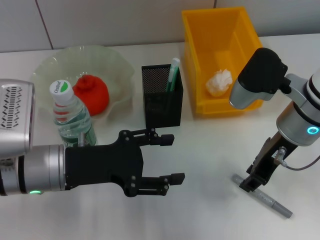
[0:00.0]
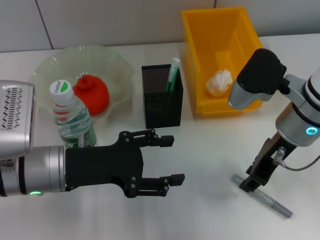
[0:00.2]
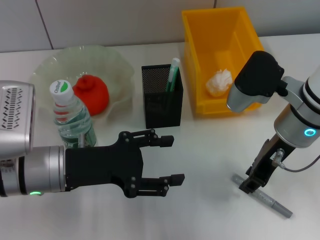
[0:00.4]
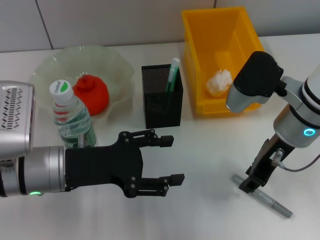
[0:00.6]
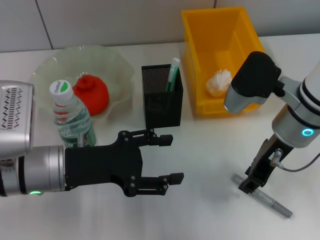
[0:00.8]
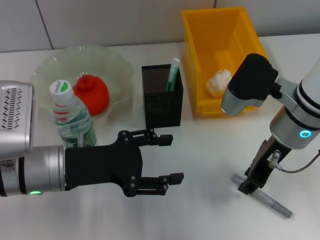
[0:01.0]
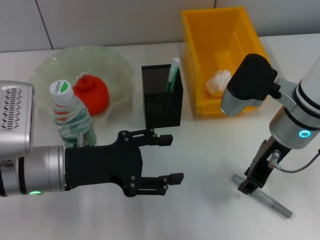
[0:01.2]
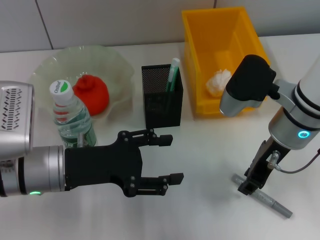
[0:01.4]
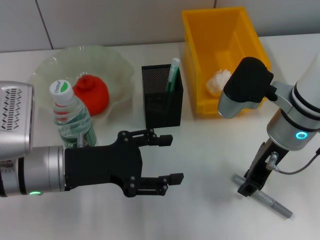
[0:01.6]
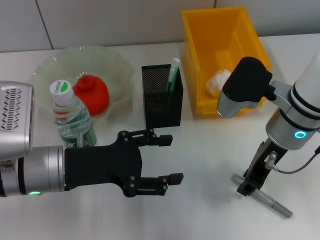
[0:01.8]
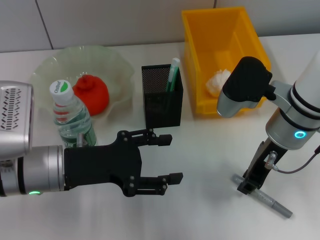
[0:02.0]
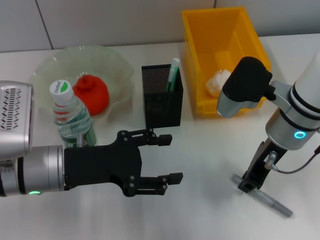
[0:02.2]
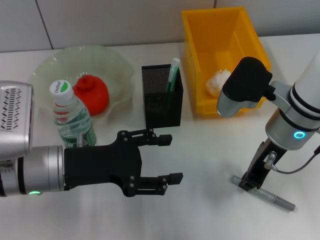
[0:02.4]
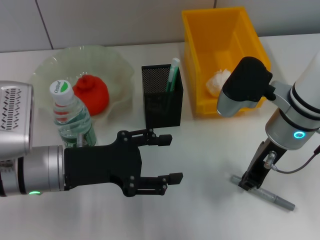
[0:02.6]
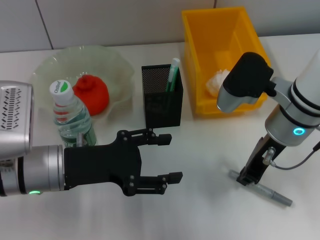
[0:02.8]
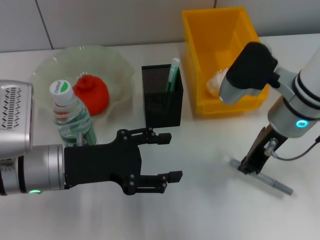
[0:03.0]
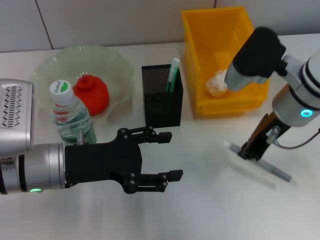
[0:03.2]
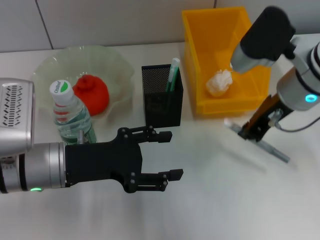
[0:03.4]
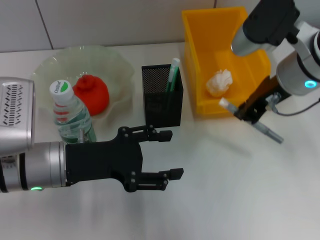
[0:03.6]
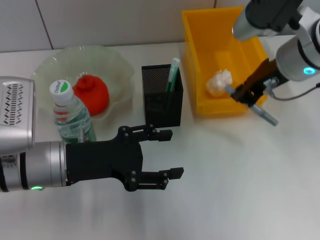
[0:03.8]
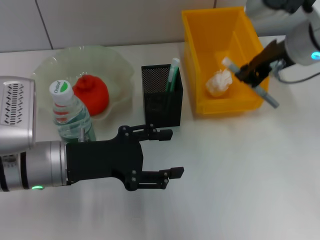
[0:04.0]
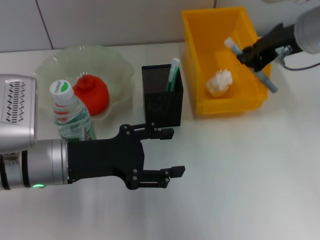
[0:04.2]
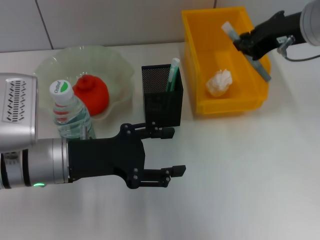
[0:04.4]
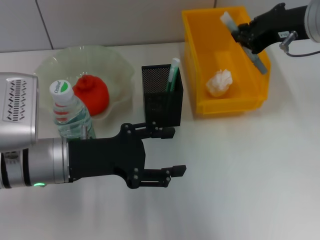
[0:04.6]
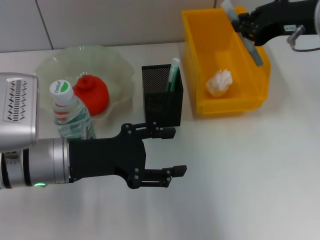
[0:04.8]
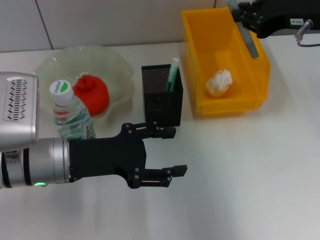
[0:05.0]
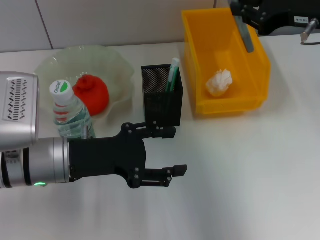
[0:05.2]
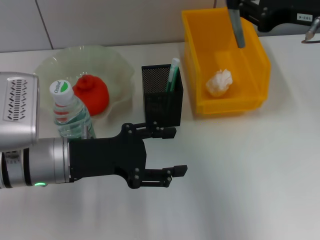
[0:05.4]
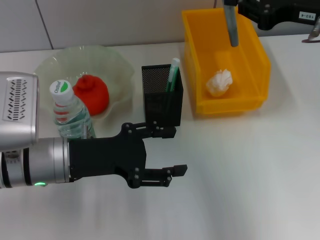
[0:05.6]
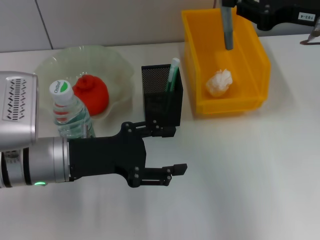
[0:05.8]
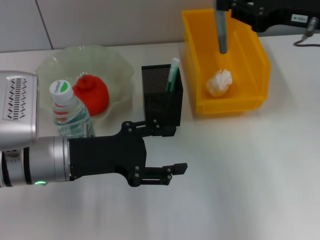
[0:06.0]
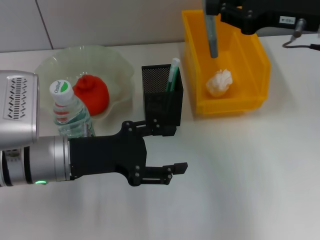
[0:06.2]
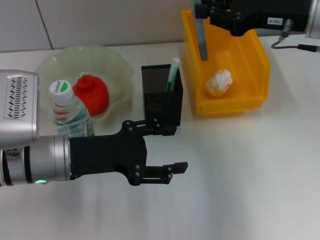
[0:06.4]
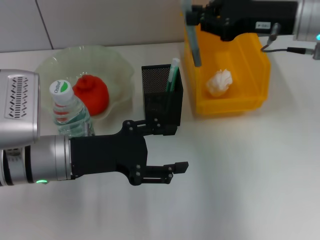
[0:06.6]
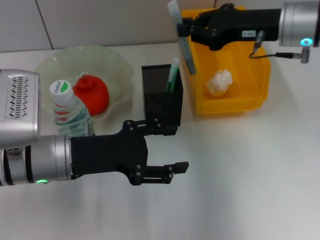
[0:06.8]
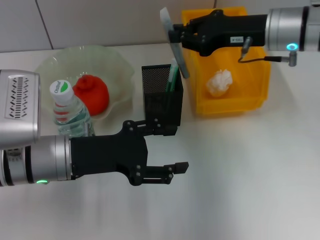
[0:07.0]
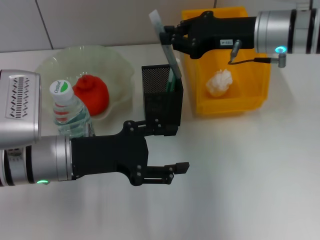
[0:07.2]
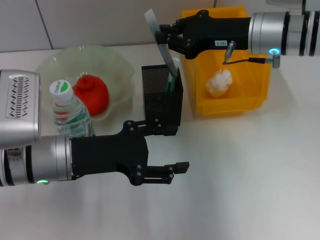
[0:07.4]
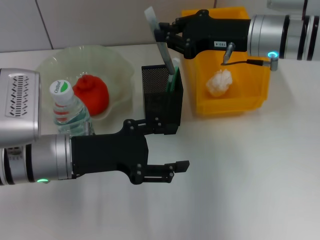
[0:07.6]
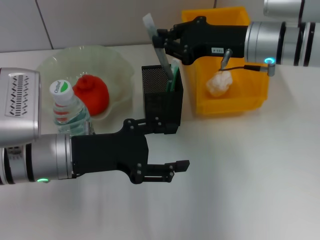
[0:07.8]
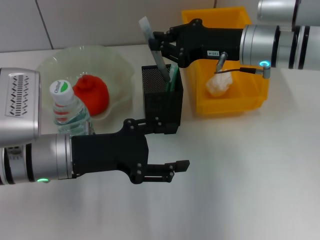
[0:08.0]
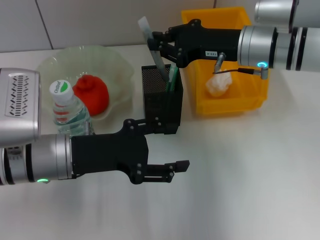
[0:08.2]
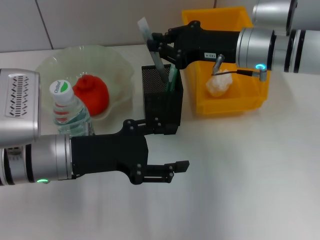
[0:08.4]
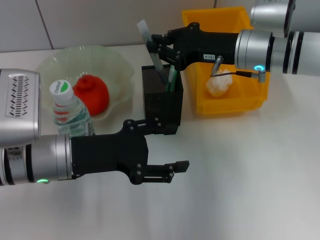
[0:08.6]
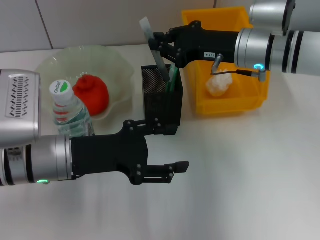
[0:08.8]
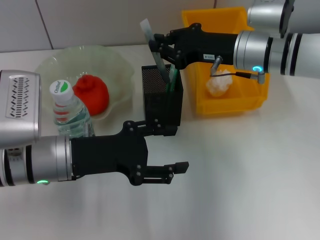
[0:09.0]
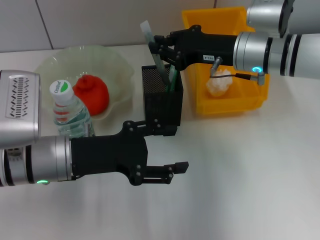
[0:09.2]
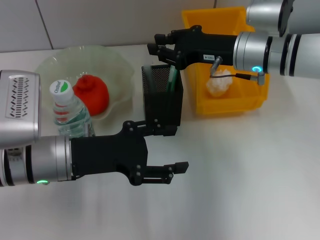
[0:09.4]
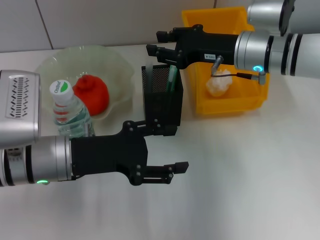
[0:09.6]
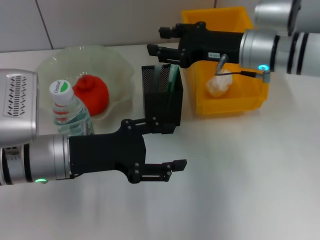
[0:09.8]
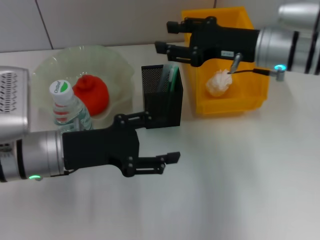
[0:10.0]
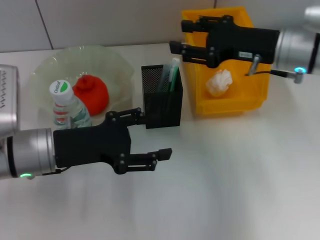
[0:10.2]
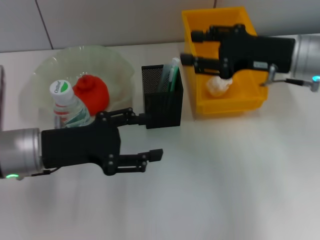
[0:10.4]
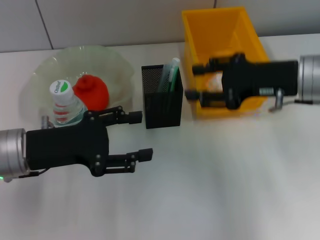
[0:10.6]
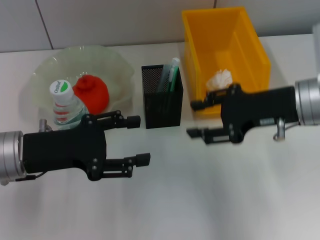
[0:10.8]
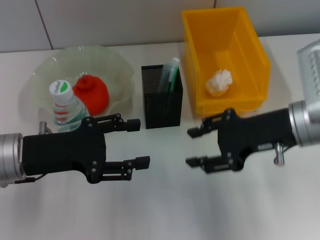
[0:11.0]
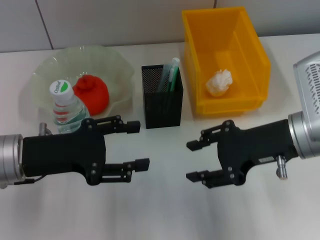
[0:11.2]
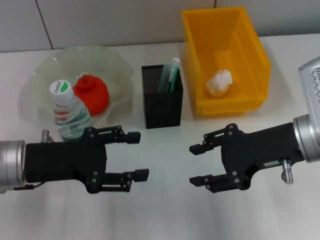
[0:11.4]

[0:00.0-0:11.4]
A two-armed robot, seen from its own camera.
Step, 0:00.0 to 0:02.2: Grab the gray glue with the right hand.
Step, 0:02.4 to 0:09.8: Place the gray glue into the pen holder with the right hand.
0:00.0 to 0:01.4: Both grippers stay about where they are.
0:01.4 to 0:02.8: Neither gripper changes place.
0:02.8 to 0:04.2: The right gripper shifts roughly 10 cm upward.
0:04.2 to 0:05.6: The right gripper moves about 5 cm.
0:05.6 to 0:07.2: The right gripper goes some 10 cm forward, to the left and downward.
0:07.2 to 0:08.6: The grippers stay close to where they were, moving slightly.
0:08.6 to 0:10.0: The right gripper opens its fingers.
0:10.0 to 0:11.4: The right gripper is displaced backward by approximately 10 cm.

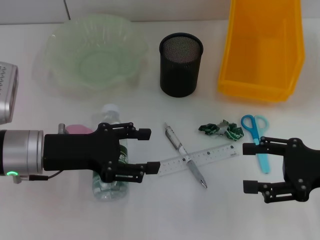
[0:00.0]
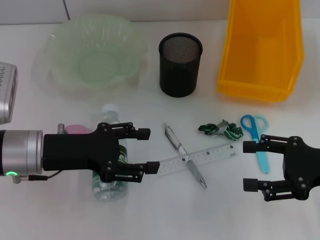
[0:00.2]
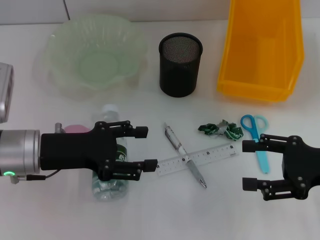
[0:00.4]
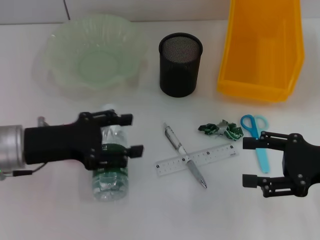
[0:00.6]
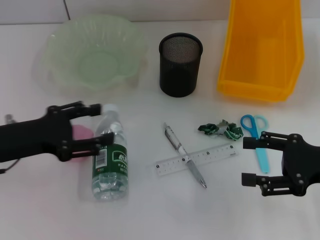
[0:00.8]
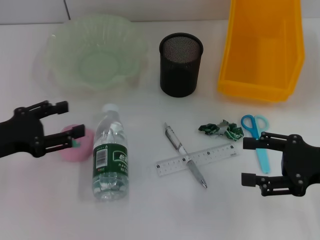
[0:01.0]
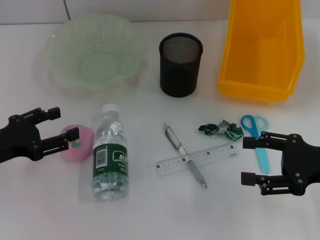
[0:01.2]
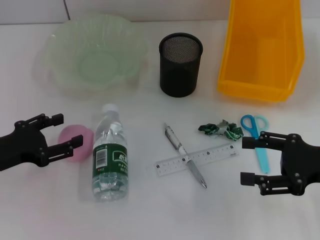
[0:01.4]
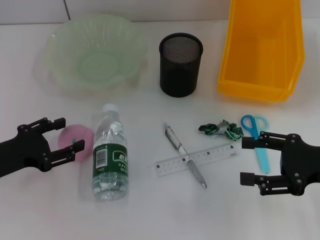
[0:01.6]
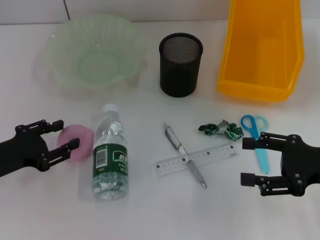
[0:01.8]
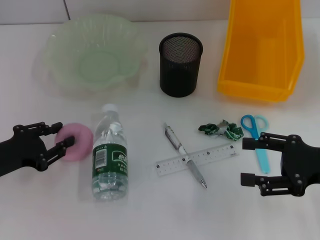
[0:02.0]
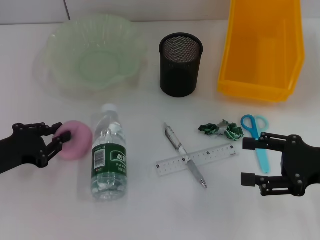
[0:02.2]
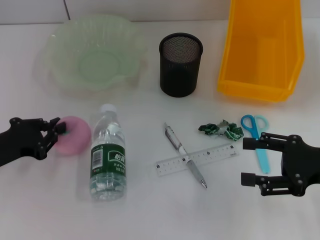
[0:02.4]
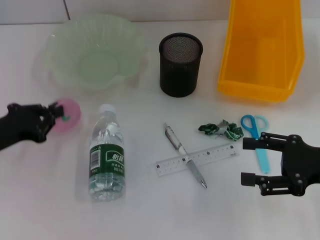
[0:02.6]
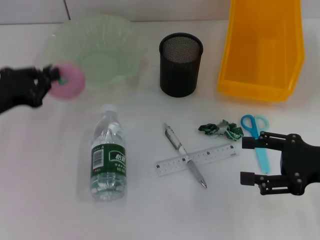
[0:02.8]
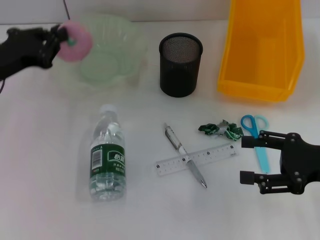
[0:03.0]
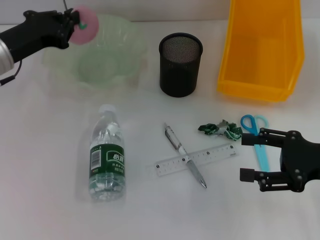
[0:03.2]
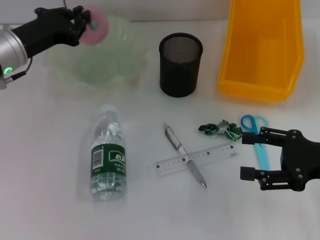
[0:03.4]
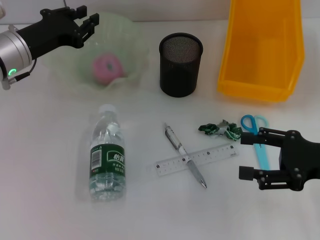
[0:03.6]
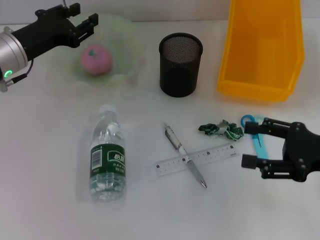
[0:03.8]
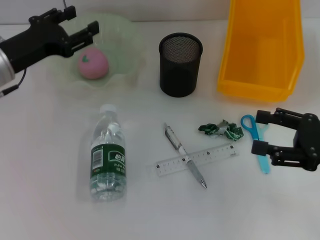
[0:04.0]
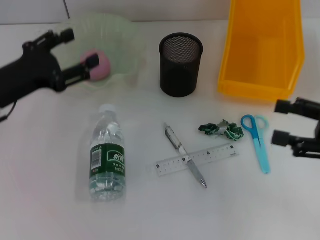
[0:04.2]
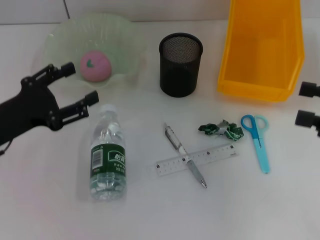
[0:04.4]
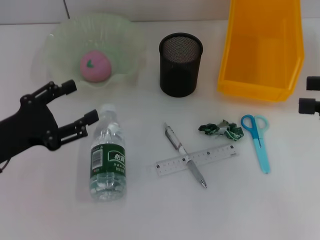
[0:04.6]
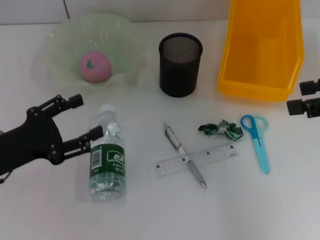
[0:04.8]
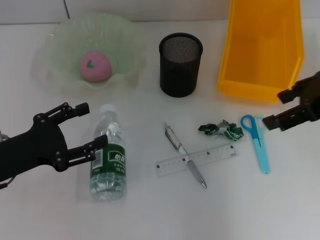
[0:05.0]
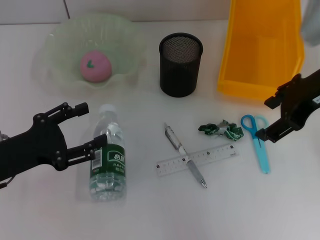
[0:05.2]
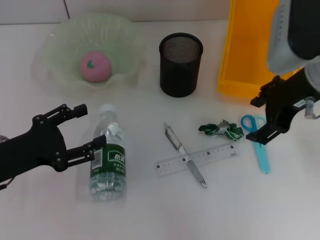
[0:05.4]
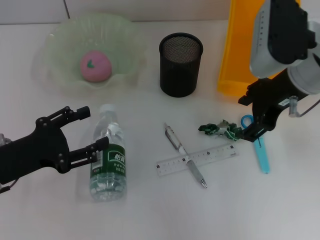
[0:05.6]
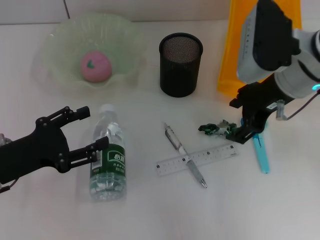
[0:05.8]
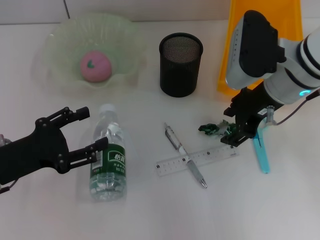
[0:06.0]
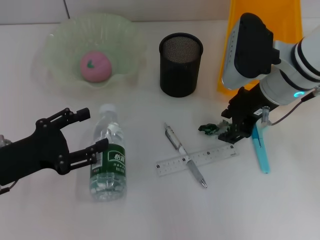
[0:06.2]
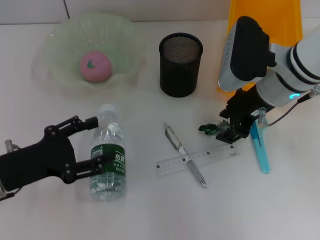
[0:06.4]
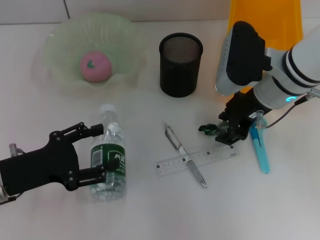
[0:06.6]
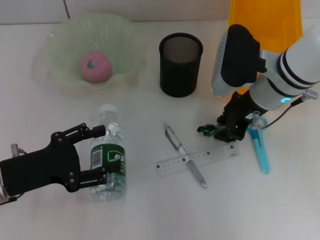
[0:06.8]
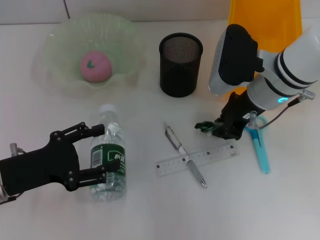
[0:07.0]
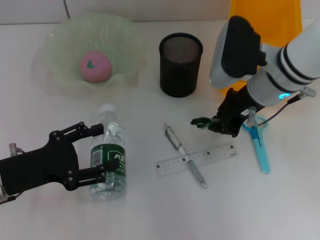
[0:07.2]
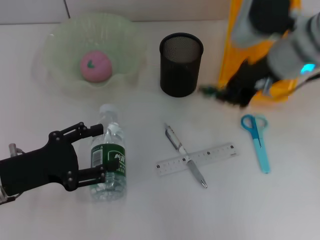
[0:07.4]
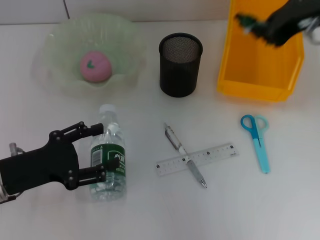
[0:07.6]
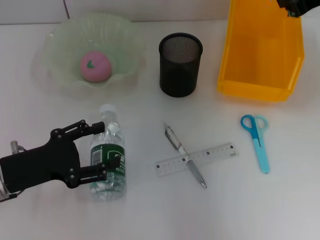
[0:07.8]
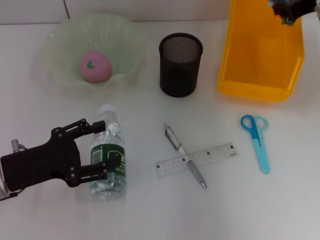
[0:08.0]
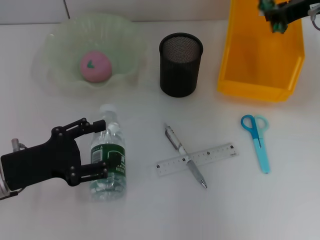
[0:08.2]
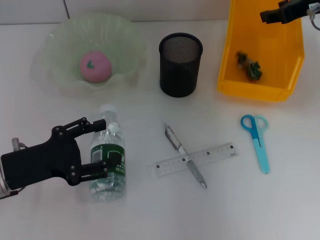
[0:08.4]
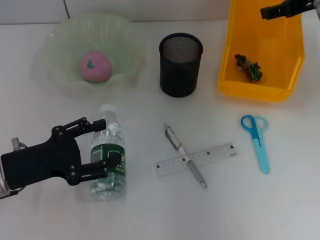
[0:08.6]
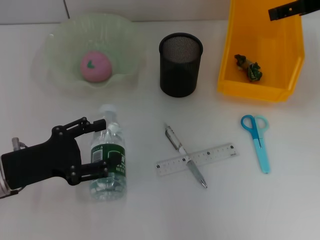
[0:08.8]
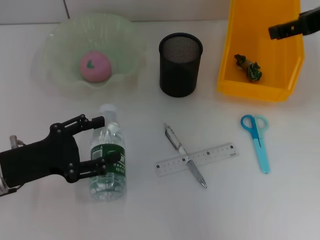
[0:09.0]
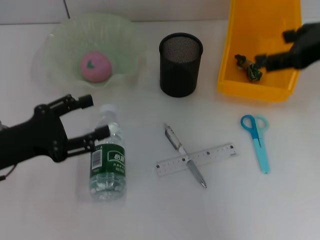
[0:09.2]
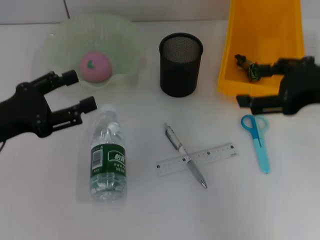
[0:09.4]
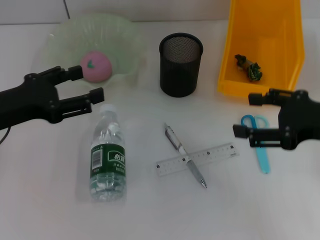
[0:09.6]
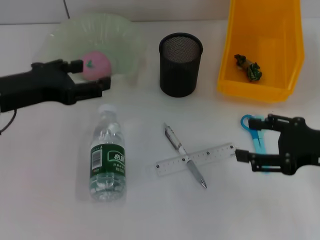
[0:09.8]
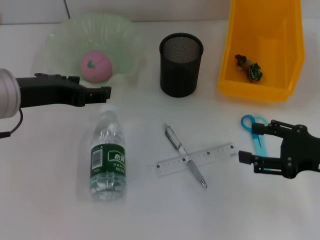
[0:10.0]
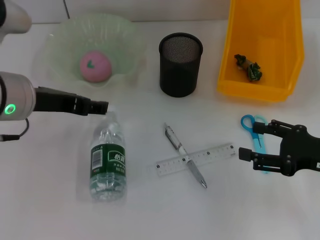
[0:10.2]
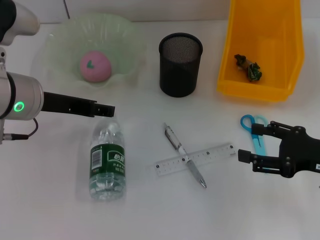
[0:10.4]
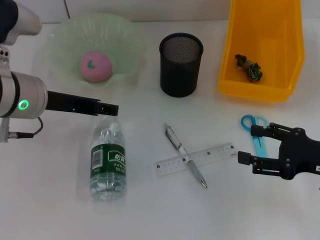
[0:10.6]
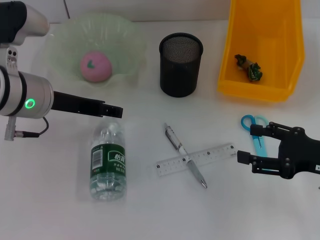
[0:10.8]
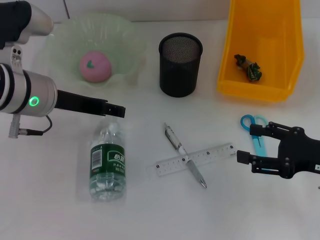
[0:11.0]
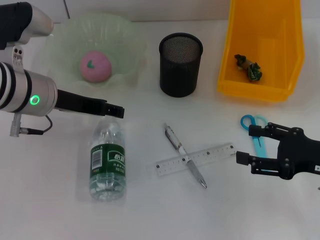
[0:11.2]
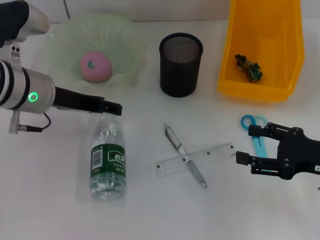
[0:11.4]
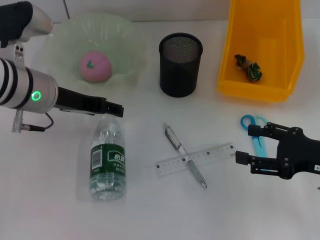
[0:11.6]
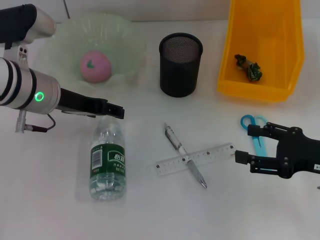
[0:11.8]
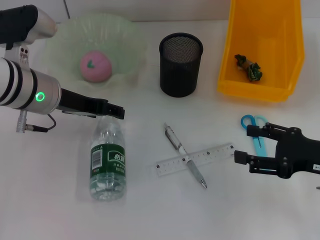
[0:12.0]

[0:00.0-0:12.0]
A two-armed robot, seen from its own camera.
Step, 0:00.0 to 0:02.2: Grab the peach with the left hand.
Step, 0:02.4 to 0:03.6: Place the peach into the fruit bowl with the left hand.
Step, 0:03.8 to 0:07.0: Grab the plastic with the right hand.
Step, 0:07.2 to 0:08.4: Place the plastic into the trash can with the right hand.
0:00.0 to 0:01.6: The left gripper travels to the left by roughly 10 cm.
0:01.6 to 0:03.0: The left gripper moves forward and upward, approximately 10 cm, and closes its fingers.
0:03.0 to 0:04.4: The right gripper heads upward, covering roughly 5 cm. Meanwhile the left gripper heads backward, covering some 5 cm, and opens.
0:04.4 to 0:06.0: The right gripper goes roughly 20 cm to the left and forward.
0:06.0 to 0:07.6: The right gripper heads upward and to the right, covering some 10 cm, and closes its fingers.
0:07.6 to 0:09.0: The right gripper opens up.
0:09.0 to 0:10.4: The left gripper goes some 15 cm upward, forward and to the right. The right gripper travels downward and backward by some 20 cm.
0:10.4 to 0:12.0: The left gripper moves about 5 cm.
